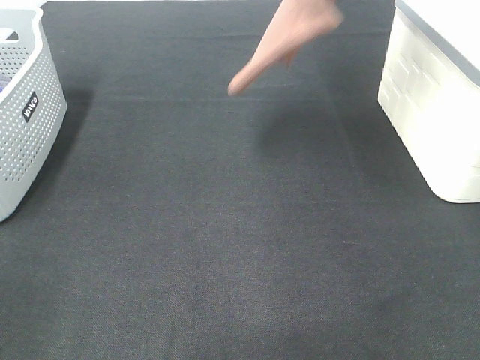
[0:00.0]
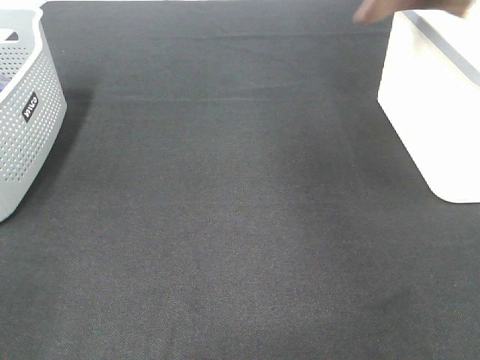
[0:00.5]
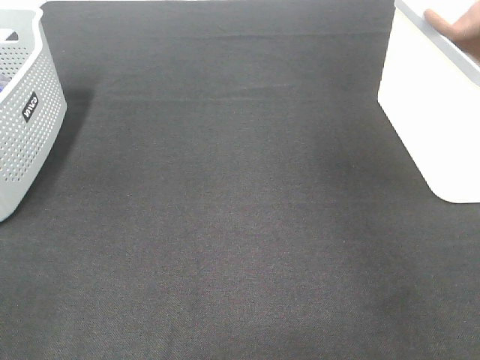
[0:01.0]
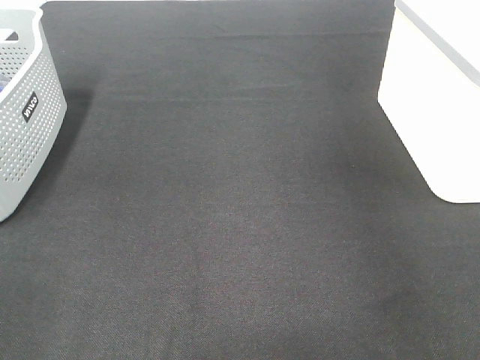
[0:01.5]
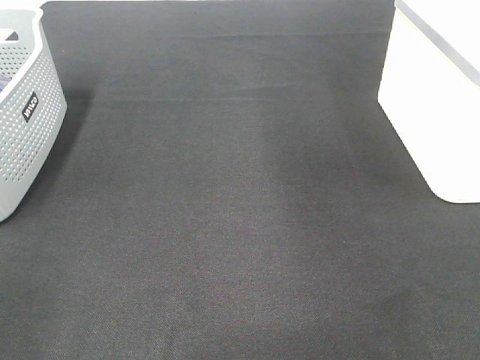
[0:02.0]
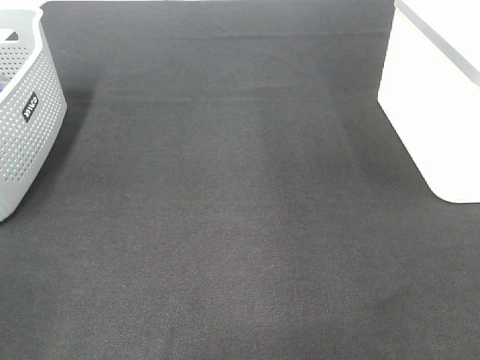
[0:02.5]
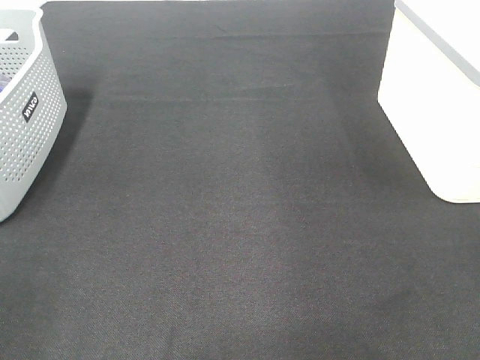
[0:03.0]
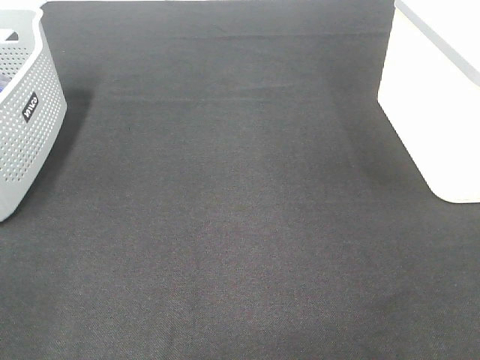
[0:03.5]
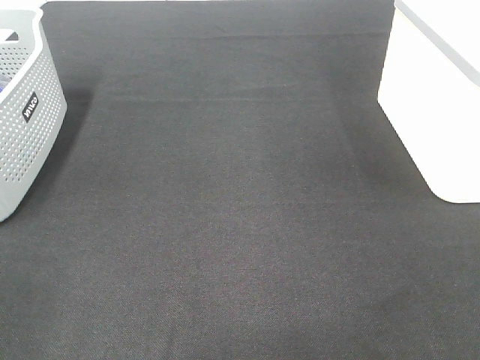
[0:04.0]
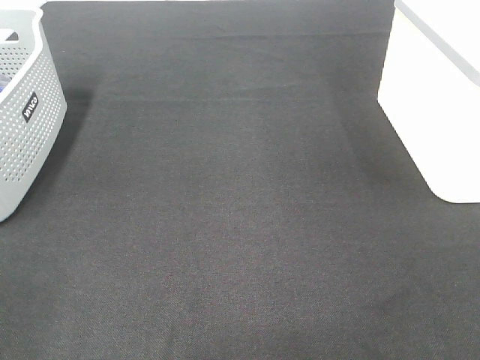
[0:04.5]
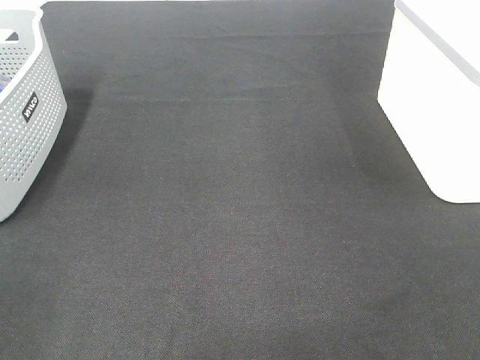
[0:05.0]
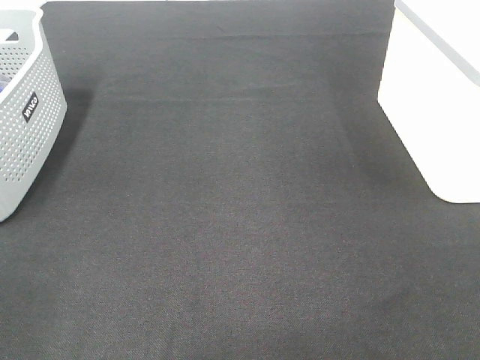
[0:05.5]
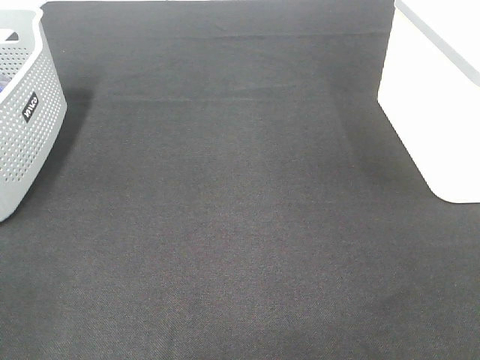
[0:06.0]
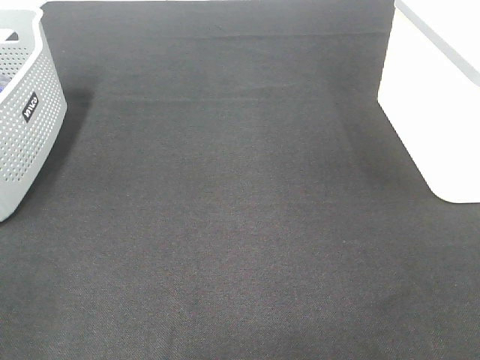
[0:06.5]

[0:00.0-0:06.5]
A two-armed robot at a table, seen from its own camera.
Step, 0:00.0 to 0:01.5: Right hand: place the brown towel in right basket.
0:00.0 to 0:02.0: The right gripper goes approximately 10 cm to the right, and opens.
0:04.5 to 0:06.5: The two grippers keep their place.

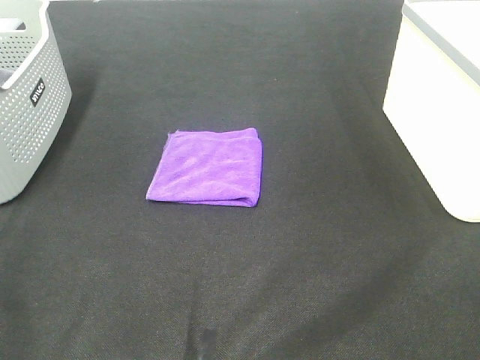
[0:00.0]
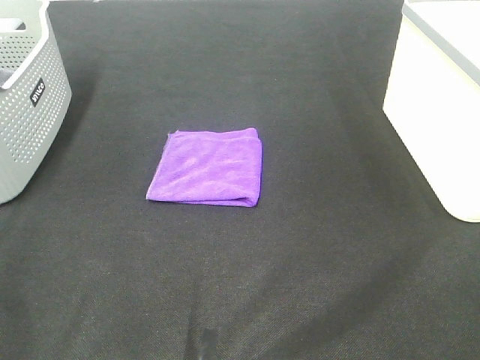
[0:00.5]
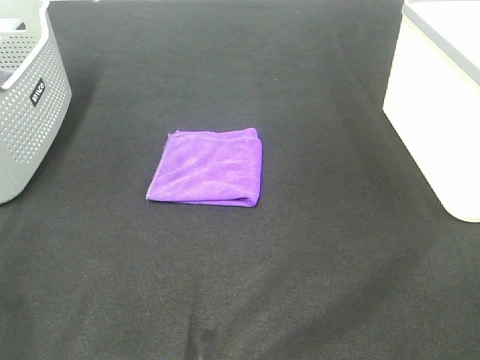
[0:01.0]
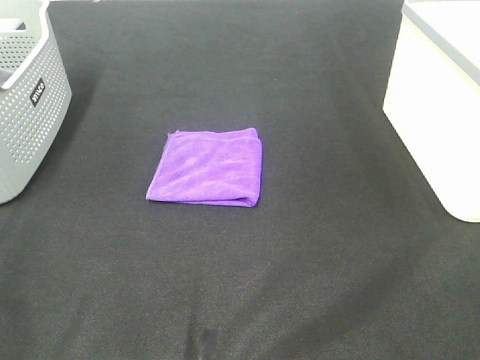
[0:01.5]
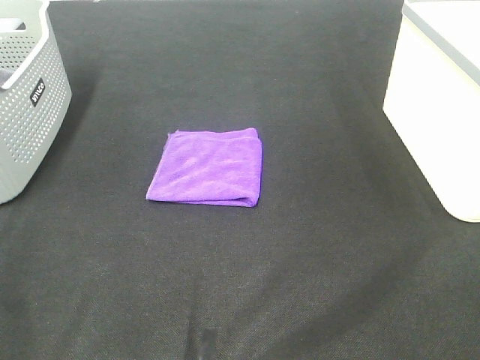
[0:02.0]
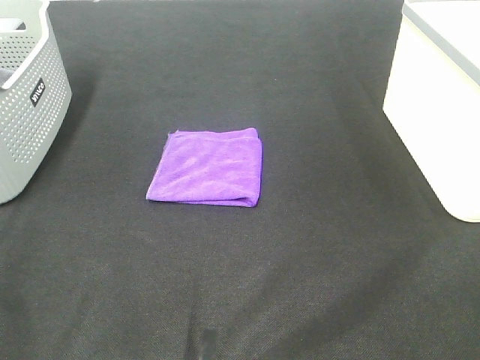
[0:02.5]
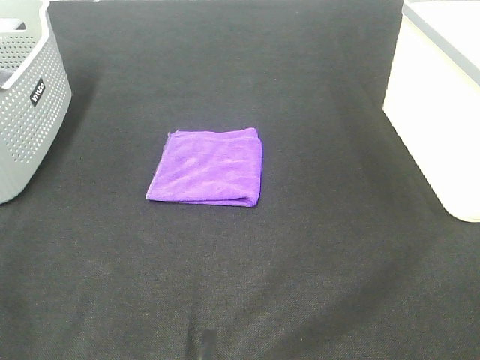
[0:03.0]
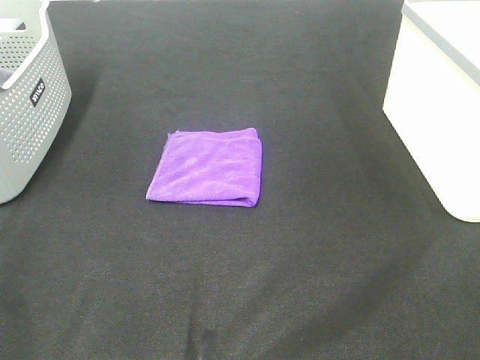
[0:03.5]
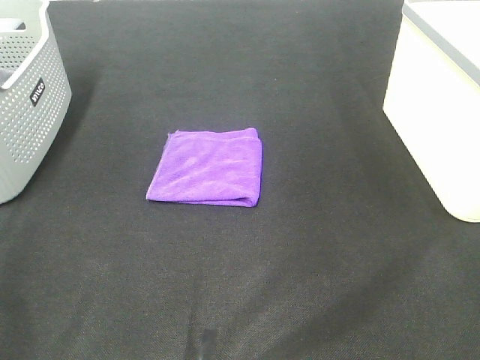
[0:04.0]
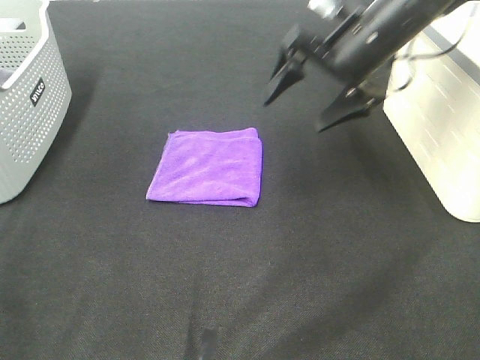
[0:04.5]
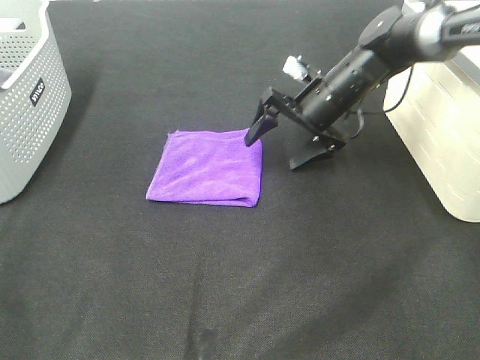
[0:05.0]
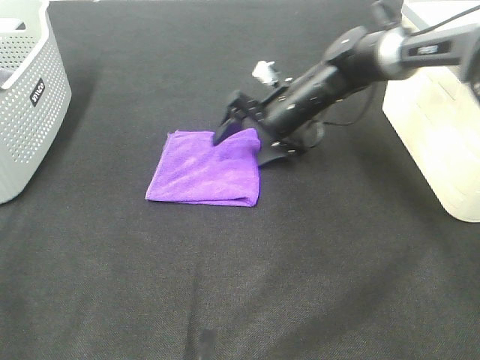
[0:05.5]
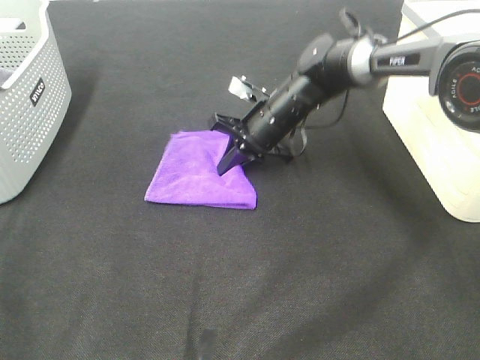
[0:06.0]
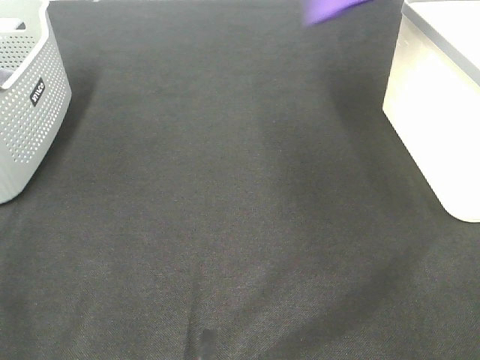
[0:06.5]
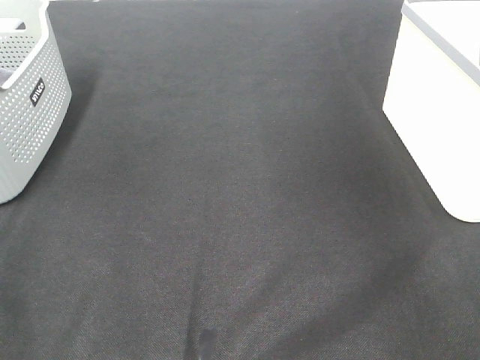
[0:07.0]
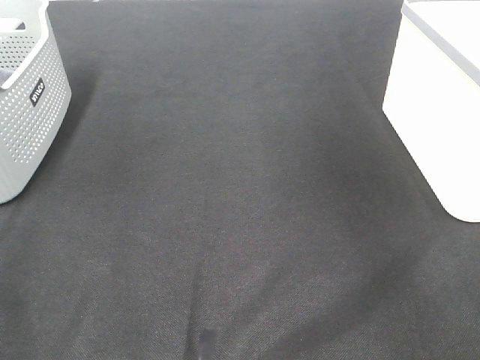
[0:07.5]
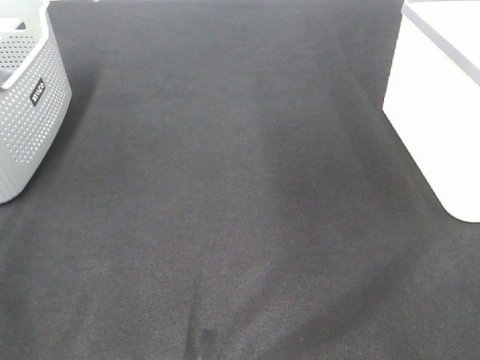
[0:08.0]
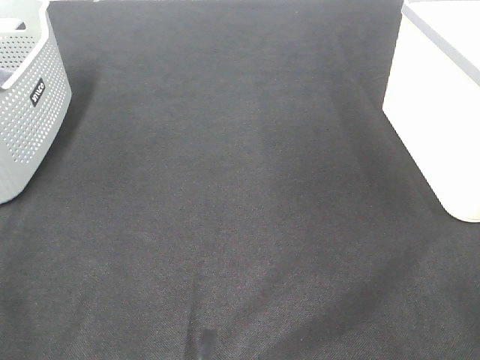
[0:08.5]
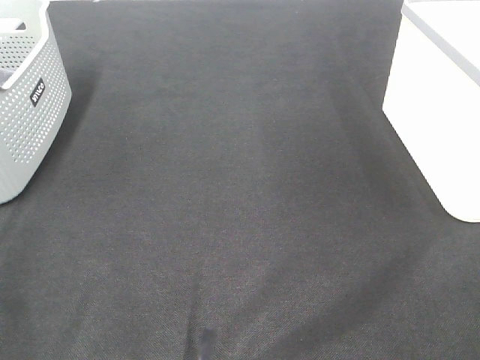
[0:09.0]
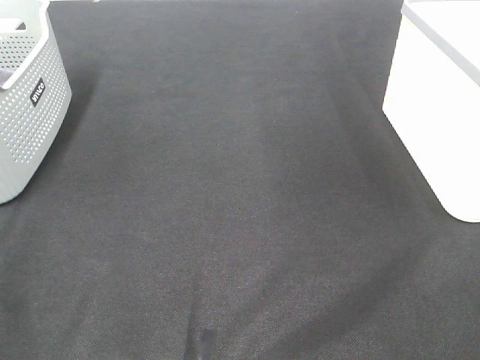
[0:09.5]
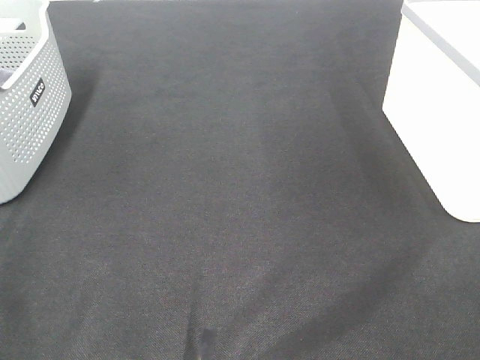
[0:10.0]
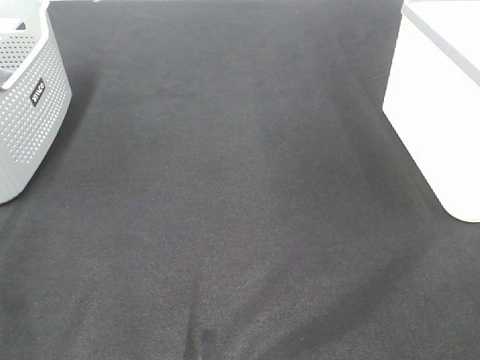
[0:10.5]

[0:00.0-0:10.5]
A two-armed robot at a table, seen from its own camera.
Step, 0:00.0 to 0:05.5: Right hand: grab the folded purple towel.
Step, 0:06.0 to 0:07.0: Right hand: place the purple towel in right basket.
0:00.0 to 0:02.0: The two grippers keep their place.
0:04.0 to 0:06.5: The right gripper moves forward, approximately 20 cm, moves roughly 30 cm downward and comes back, and closes its fingers.
0:06.5 to 0:08.5: The right gripper travels backward by approximately 35 cm, and opens.

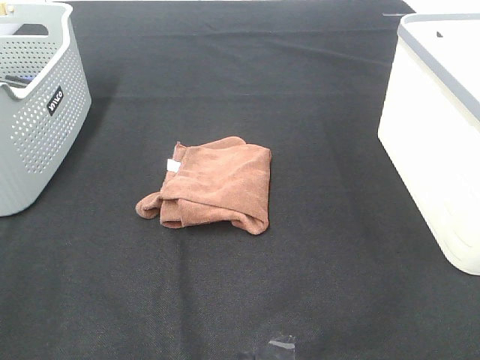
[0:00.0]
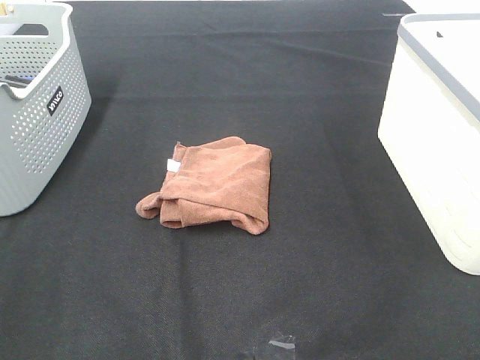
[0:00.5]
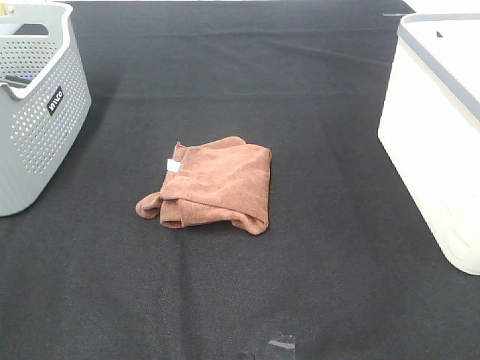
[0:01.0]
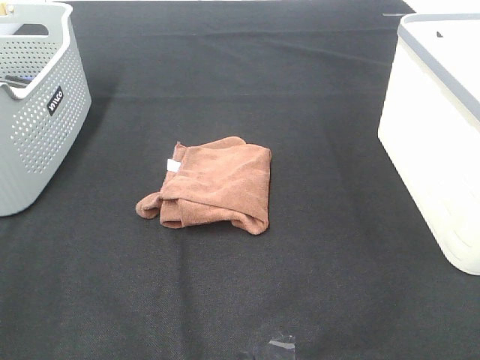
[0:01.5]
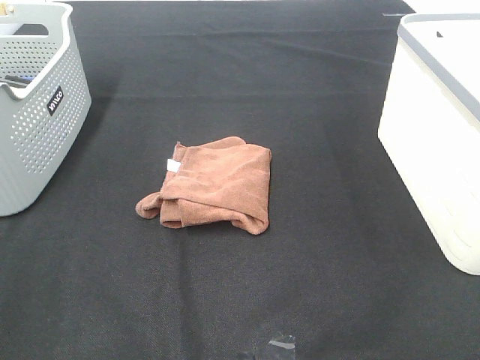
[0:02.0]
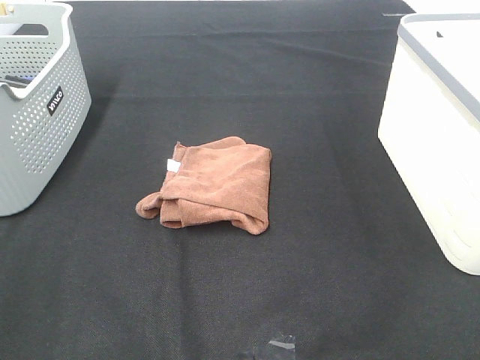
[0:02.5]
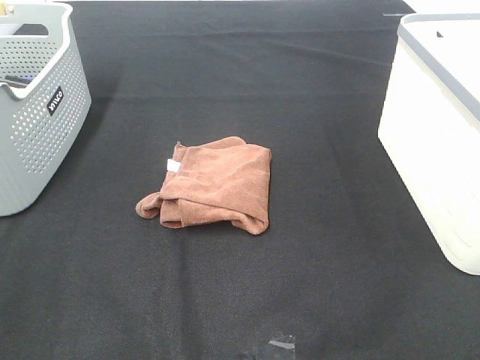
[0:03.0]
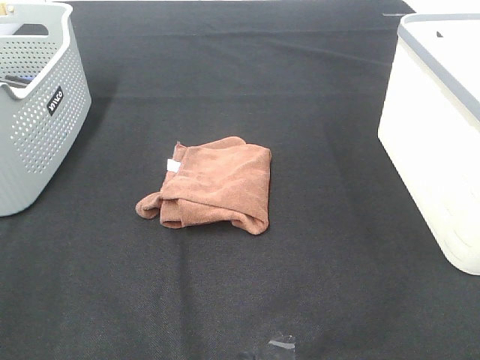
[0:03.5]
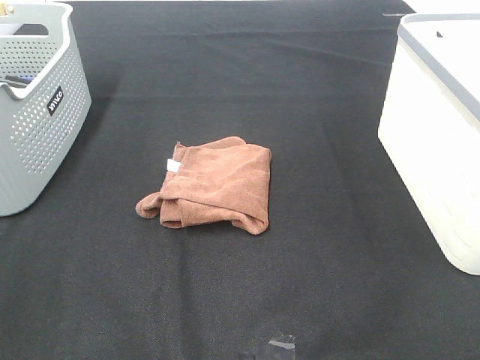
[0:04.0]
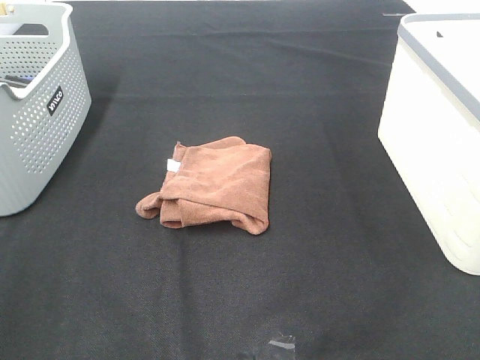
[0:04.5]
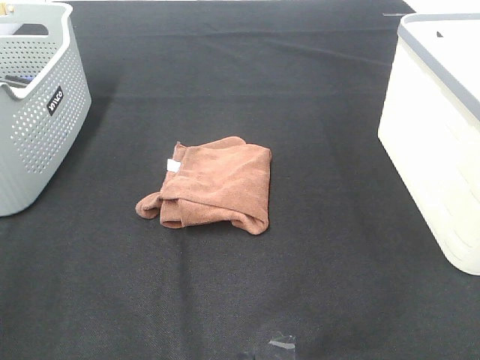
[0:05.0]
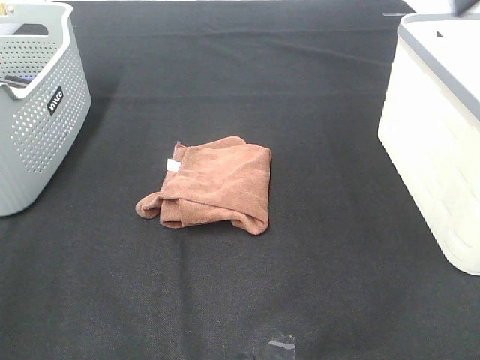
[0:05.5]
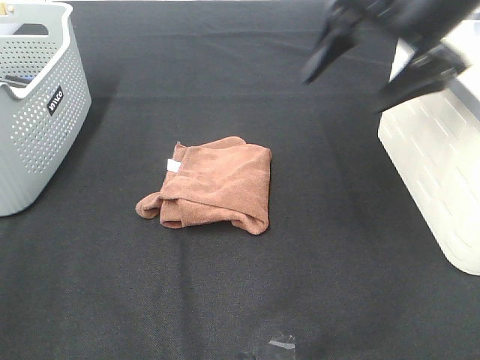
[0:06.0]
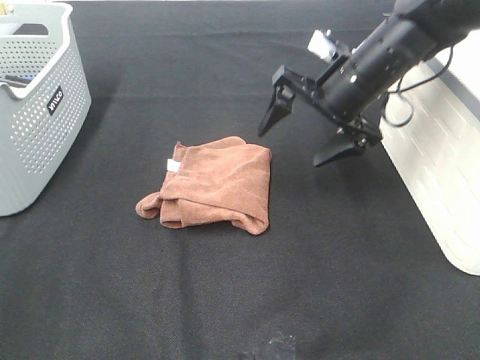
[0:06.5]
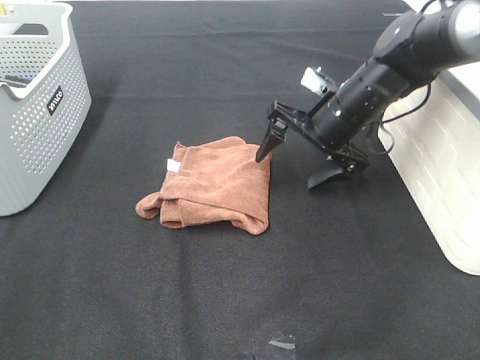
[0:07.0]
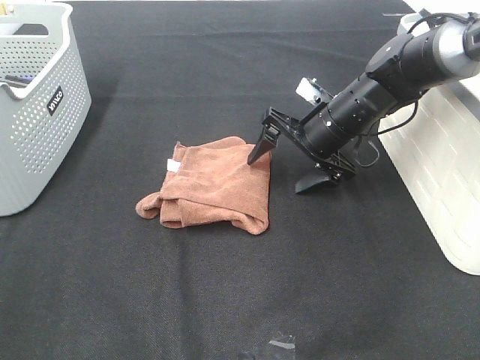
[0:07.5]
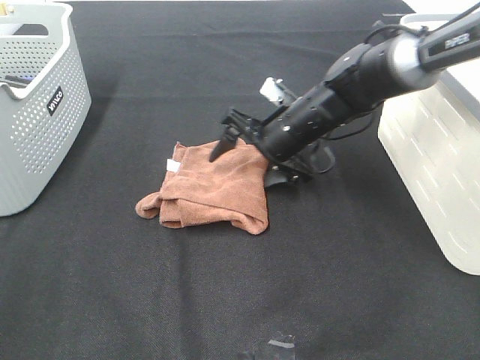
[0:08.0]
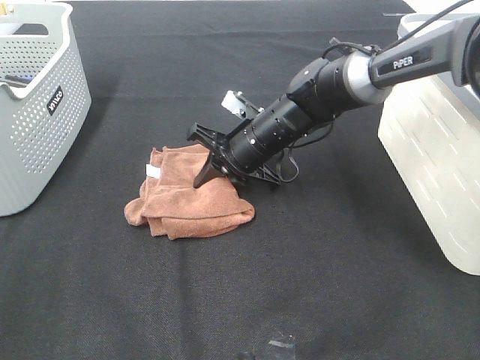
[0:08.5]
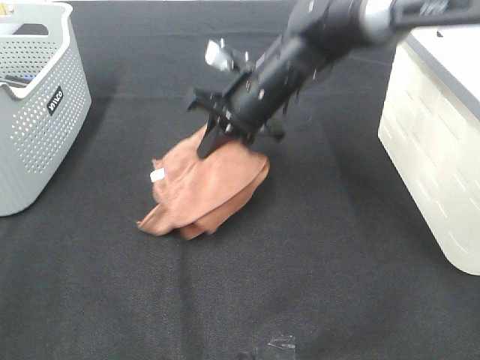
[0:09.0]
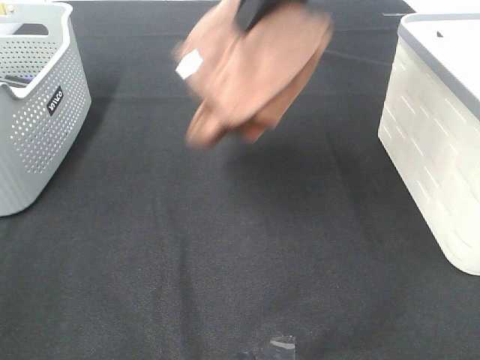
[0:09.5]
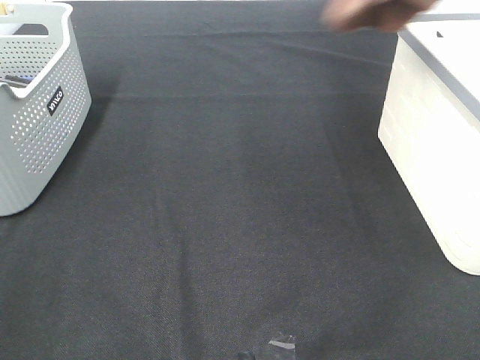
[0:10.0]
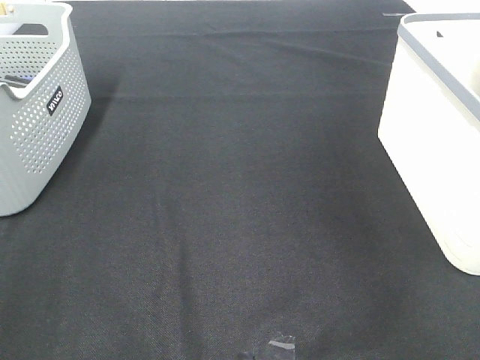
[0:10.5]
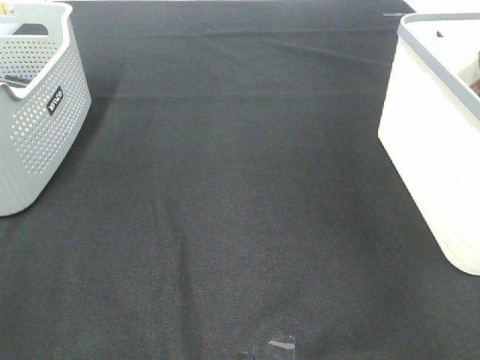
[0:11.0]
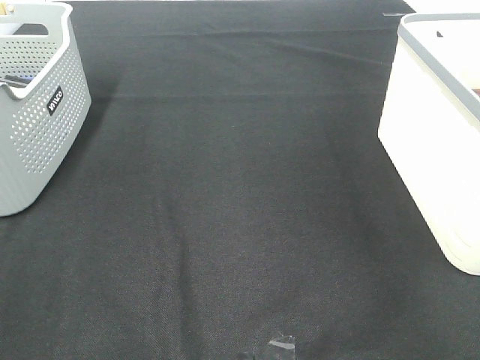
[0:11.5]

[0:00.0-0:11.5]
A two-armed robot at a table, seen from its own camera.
Step, 0:00.0 to 0:08.5: Right hand: grab the folded brown towel.
Step, 0:09.0 to 0:11.5: Right hand: place the brown towel in right basket.
0:00.0 to 0:02.0: Both grippers stay put.
0:04.0 to 0:06.0: The right gripper is displaced forward and to the left by about 35 cm.
0:06.0 to 0:07.5: The right gripper moves downward, approximately 20 cm.
0:07.5 to 0:09.5: The right gripper moves upward, about 25 cm, and closes its fingers.
0:09.5 to 0:11.5: The right gripper goes approximately 30 cm to the right, and opens up.
